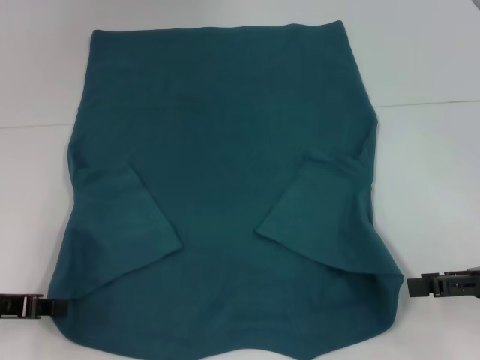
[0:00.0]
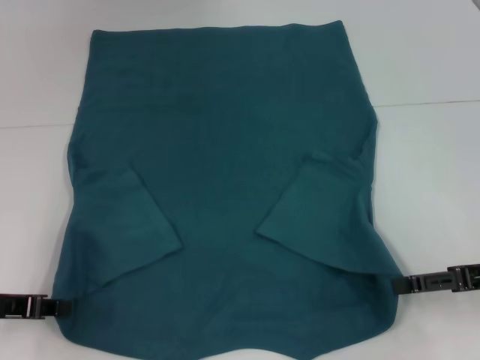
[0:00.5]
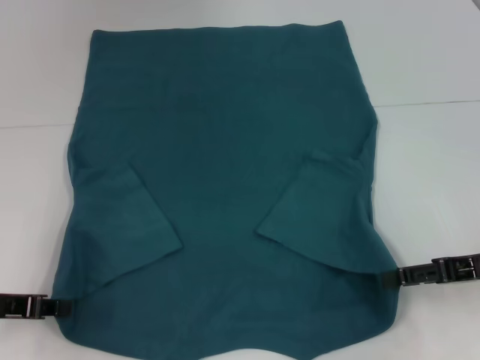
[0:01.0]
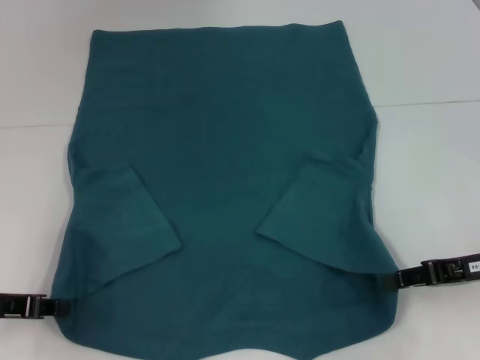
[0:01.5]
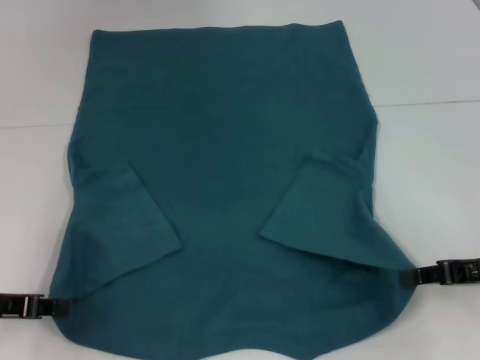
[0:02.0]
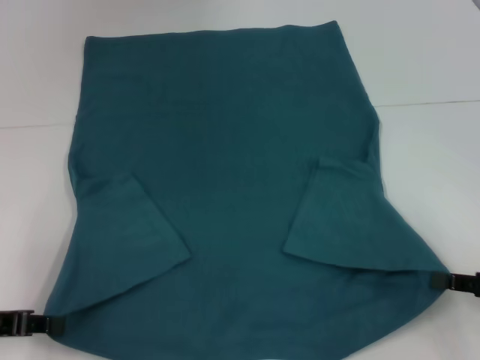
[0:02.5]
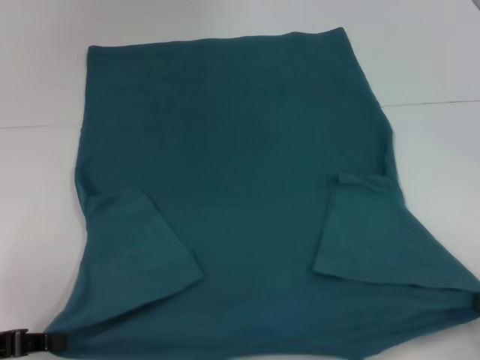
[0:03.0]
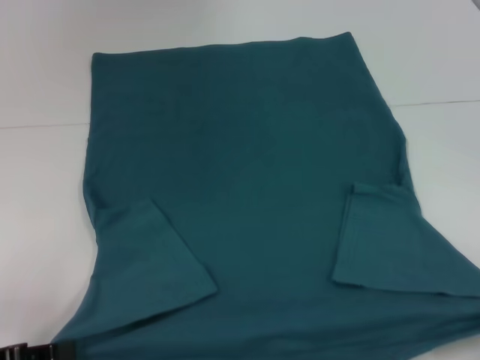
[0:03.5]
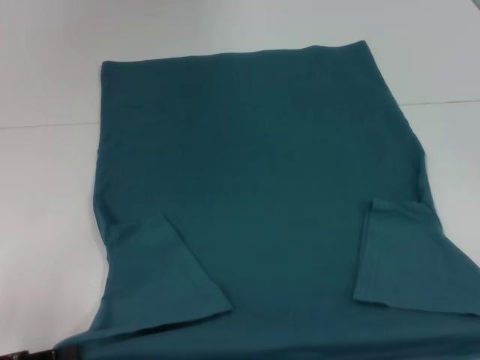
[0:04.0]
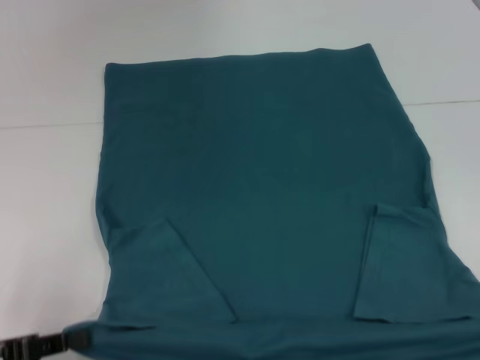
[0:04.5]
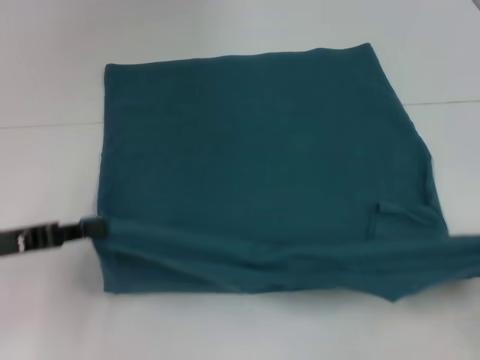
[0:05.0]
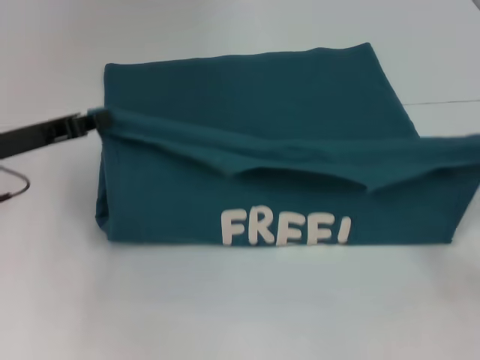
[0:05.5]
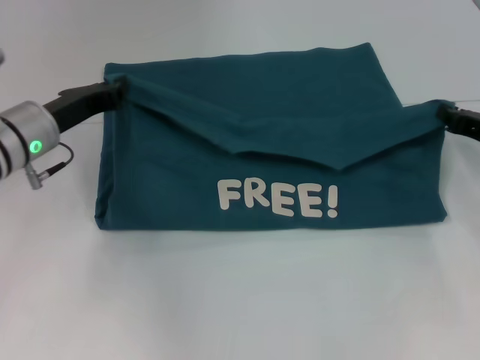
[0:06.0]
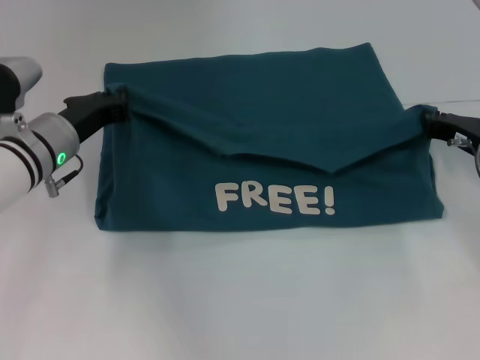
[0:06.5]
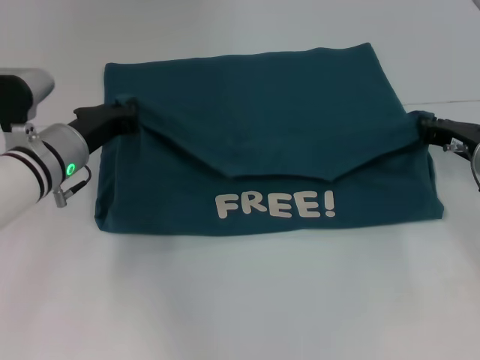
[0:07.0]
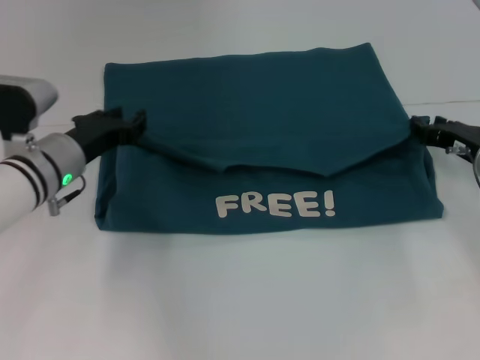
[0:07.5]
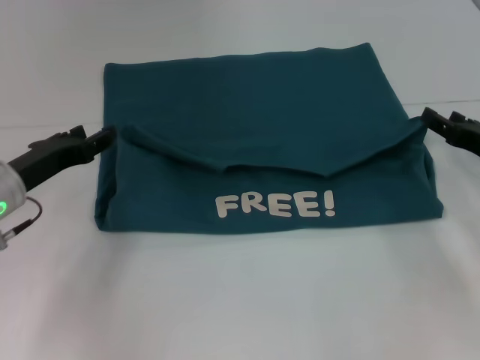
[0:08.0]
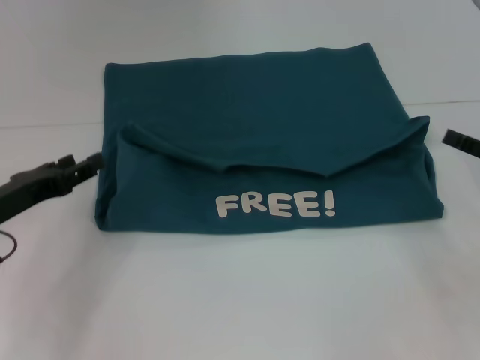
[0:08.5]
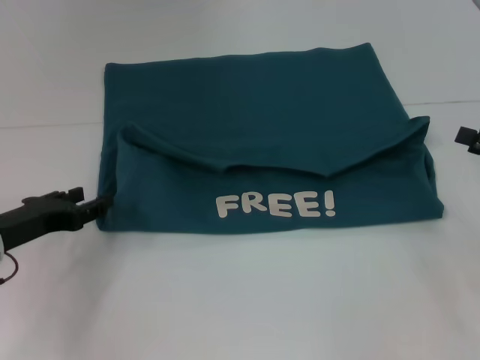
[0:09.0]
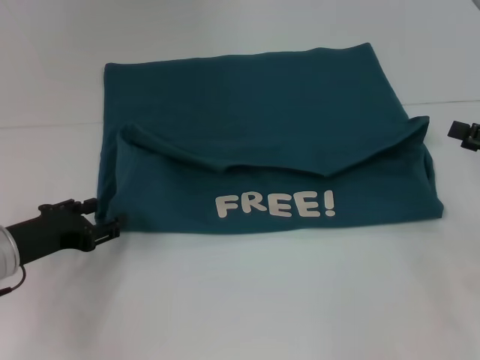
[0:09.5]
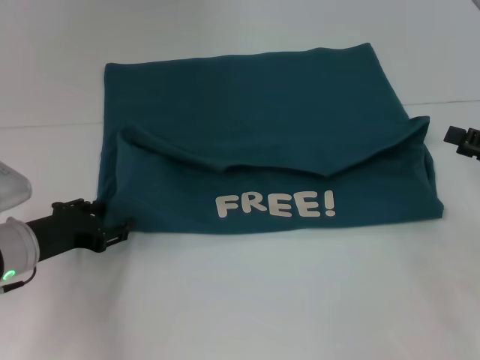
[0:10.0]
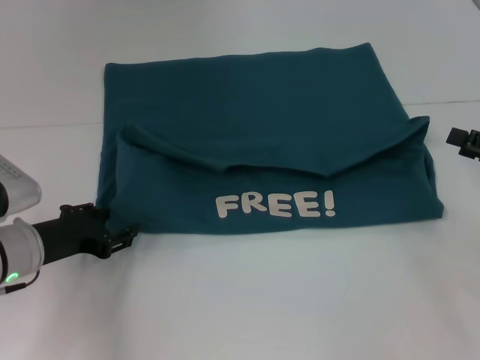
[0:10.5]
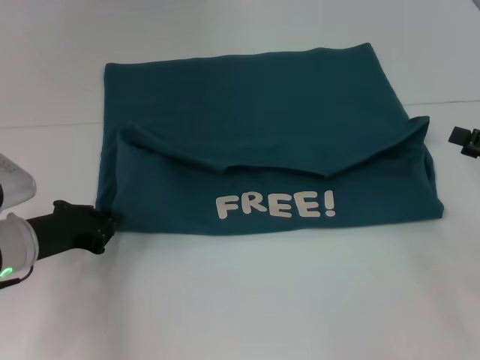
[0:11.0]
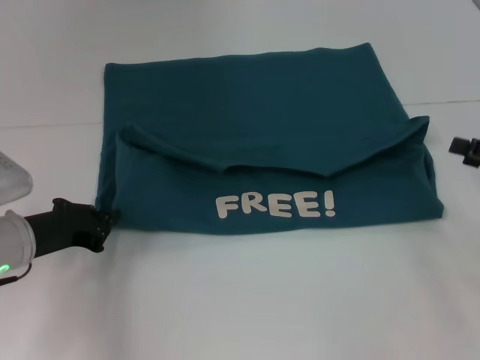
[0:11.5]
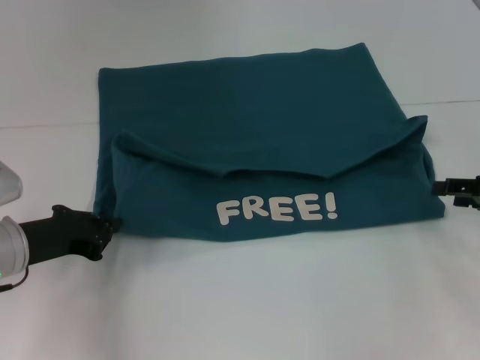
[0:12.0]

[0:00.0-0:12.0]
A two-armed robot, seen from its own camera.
Step, 0:00.0 to 0:01.5: Grab the bottom right corner with your right hand.
Step, 0:02.0 to 0:07.5: Fold the clothes to the left.
Step, 0:02.0 to 0:07.5: Fold the clothes to the right.
0:00.0 to 0:02.0: The right gripper closes up.
0:02.0 to 0:04.0: The right gripper moves backward and to the right, about 20 cm, while the left gripper travels backward by about 10 cm.
0:04.0 to 0:06.0: The left gripper travels forward and to the right by some 25 cm; the right gripper moves forward, approximately 25 cm.
0:06.0 to 0:08.0: The right gripper opens up. The left gripper travels backward by some 5 cm, and opens its fingers.
0:08.0 to 0:10.0: The right gripper changes place by approximately 10 cm.
0:10.0 to 0:12.0: The left gripper closes its fingers.

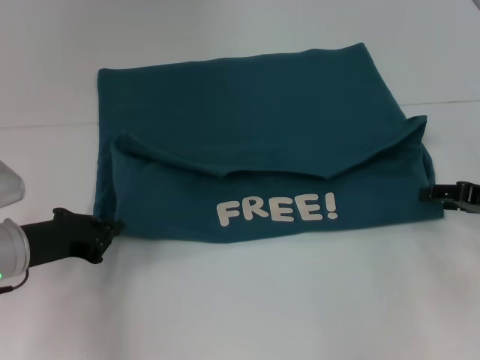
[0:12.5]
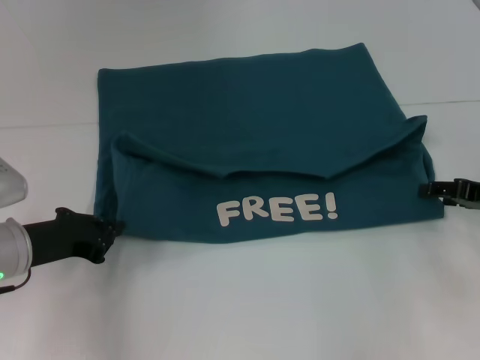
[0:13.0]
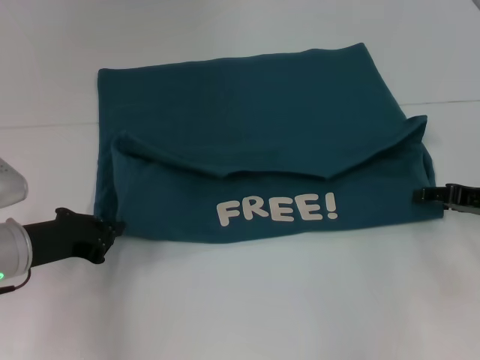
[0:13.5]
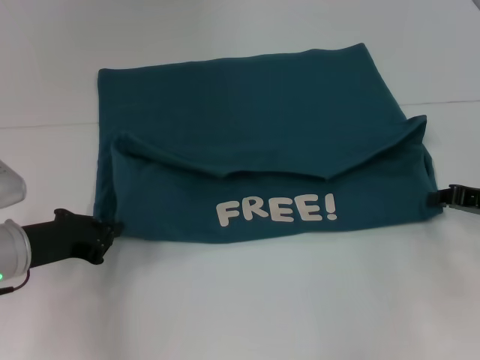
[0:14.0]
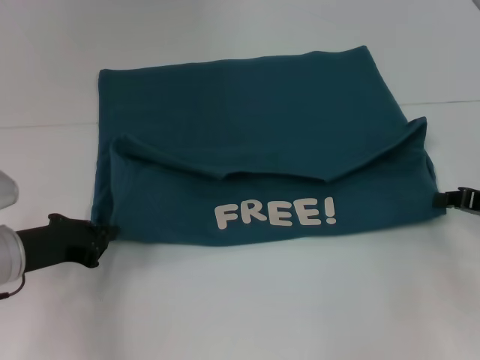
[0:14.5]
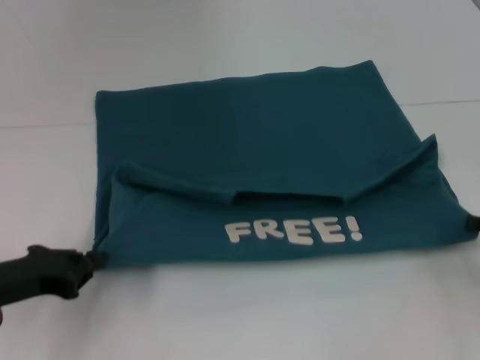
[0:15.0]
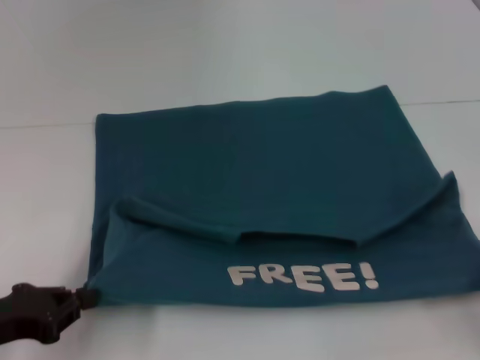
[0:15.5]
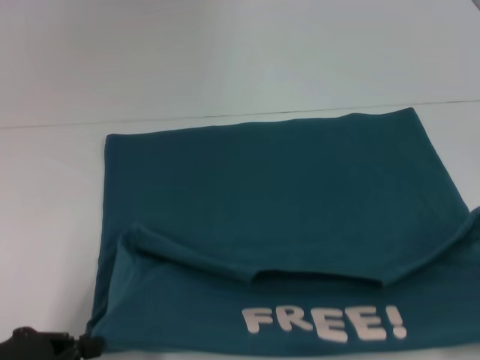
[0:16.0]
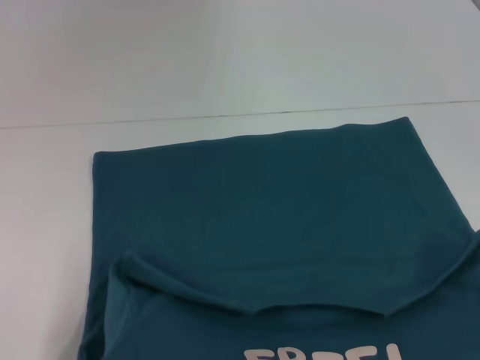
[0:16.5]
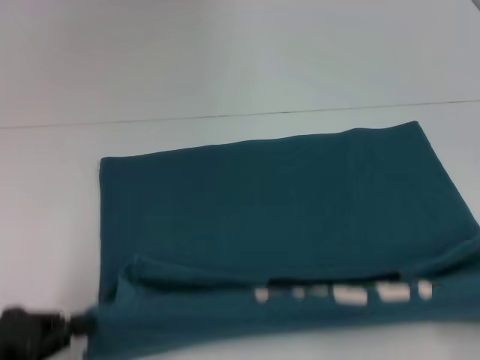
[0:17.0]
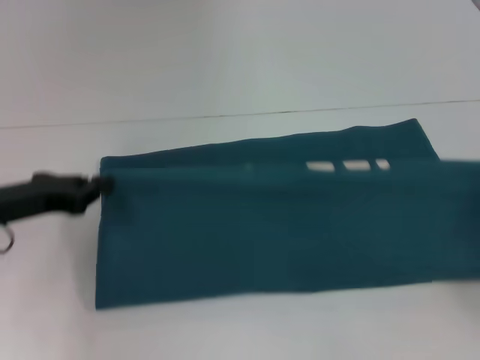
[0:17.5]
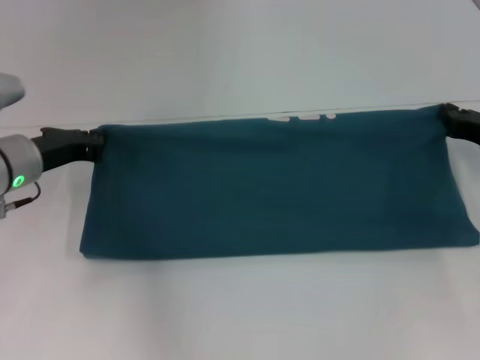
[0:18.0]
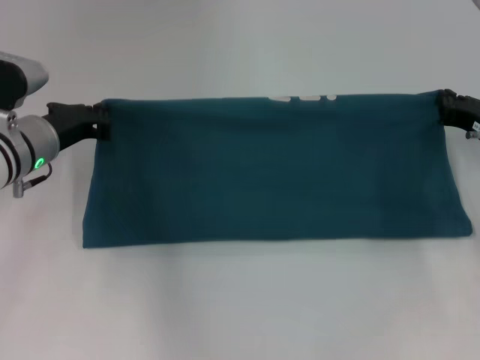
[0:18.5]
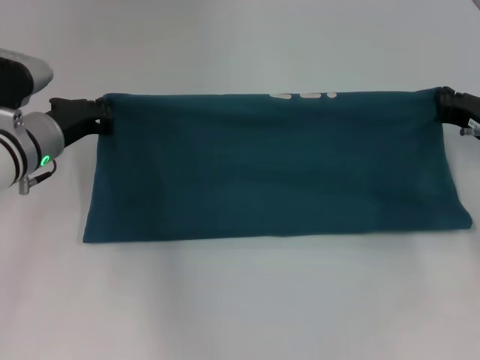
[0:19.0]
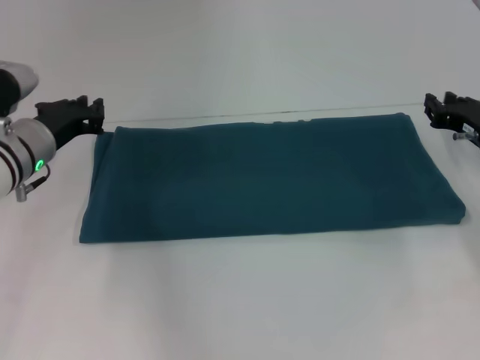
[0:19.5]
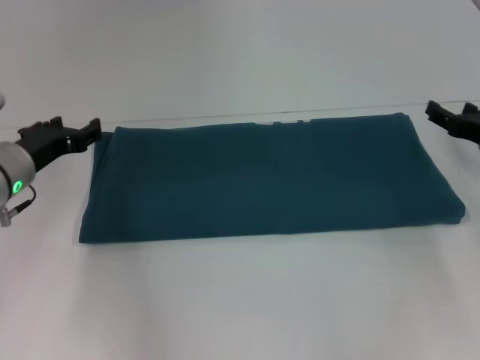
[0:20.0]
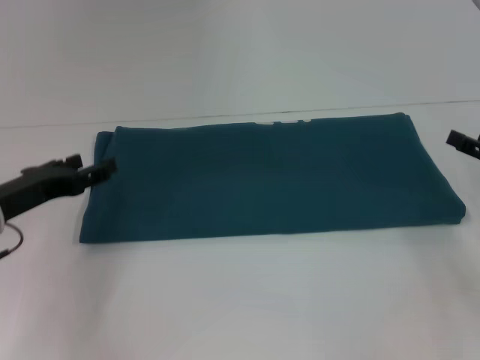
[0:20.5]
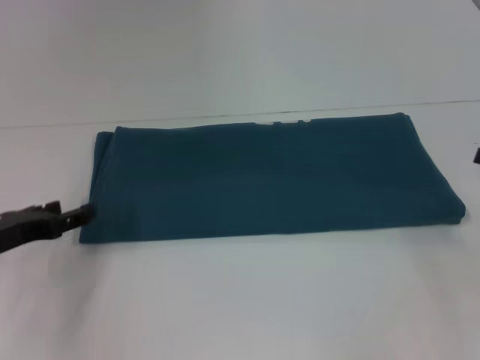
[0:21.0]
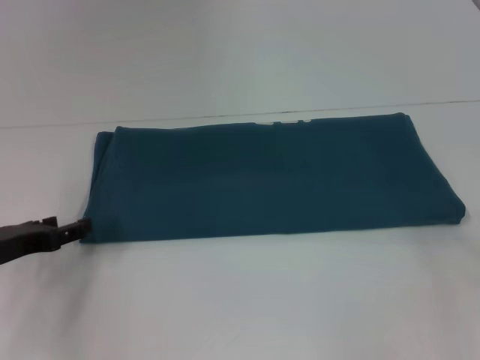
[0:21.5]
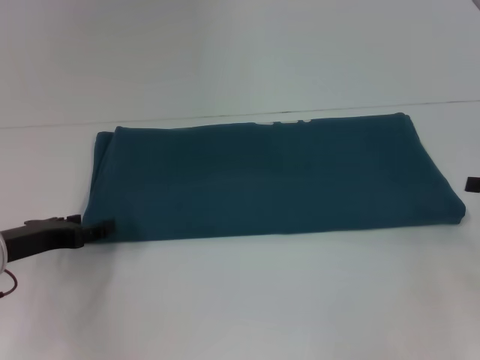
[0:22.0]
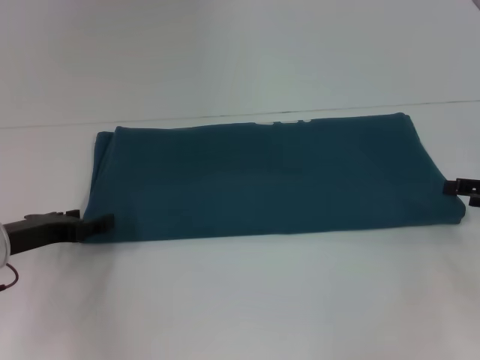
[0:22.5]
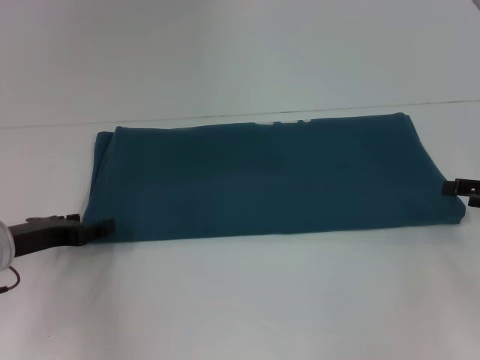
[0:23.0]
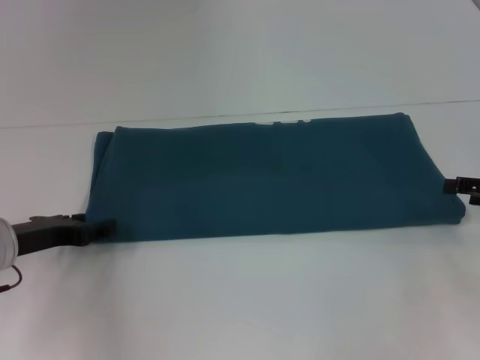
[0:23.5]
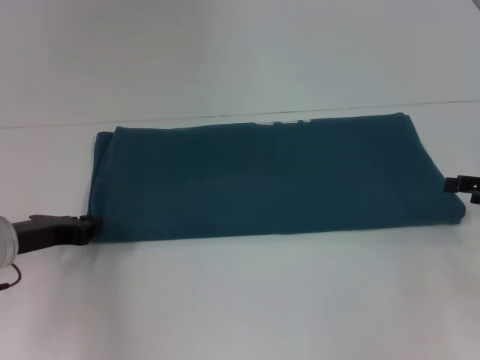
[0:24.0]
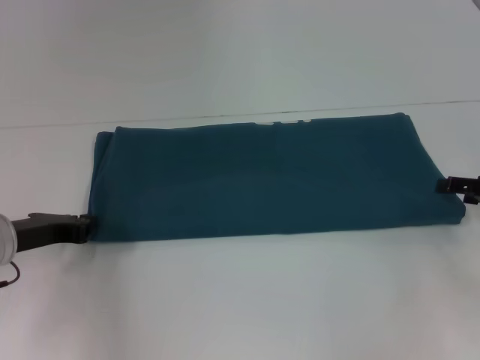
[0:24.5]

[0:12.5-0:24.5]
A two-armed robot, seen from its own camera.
Step, 0:12.5 to 0:16.0: Pull the clothes with your left hand.
Step, 0:12.5 to 0:16.0: Pull the clothes with your right hand.
Step, 0:16.5 to 0:19.0: Fold the clothes to the right.
0:12.5 to 0:14.5: The right gripper closes up.
0:14.5 to 0:16.5: The right gripper travels backward by some 25 cm. The left gripper moves backward, roughly 15 cm.
0:16.5 to 0:18.5: The grippers both shift forward by some 25 cm.
0:18.5 to 0:20.5: The right gripper shifts some 10 cm backward and to the right, and opens up. The left gripper moves backward and to the left, about 10 cm, and opens.

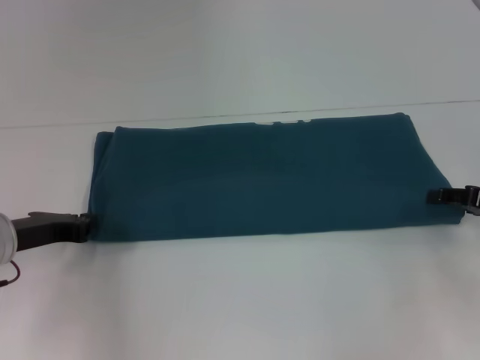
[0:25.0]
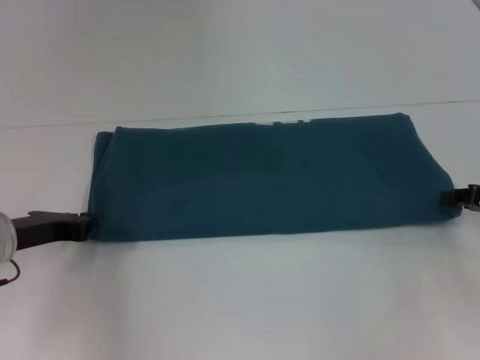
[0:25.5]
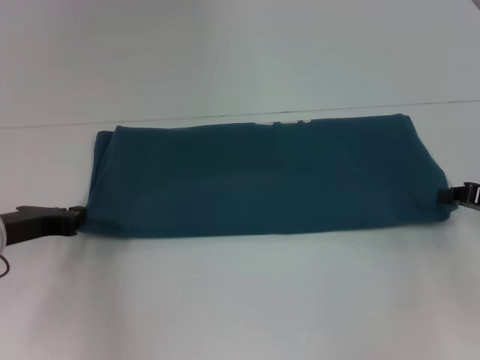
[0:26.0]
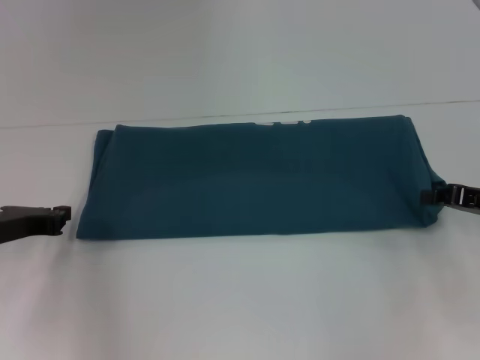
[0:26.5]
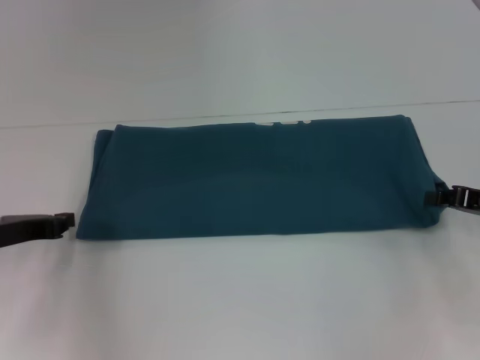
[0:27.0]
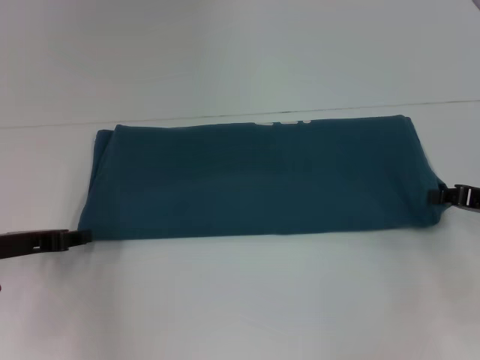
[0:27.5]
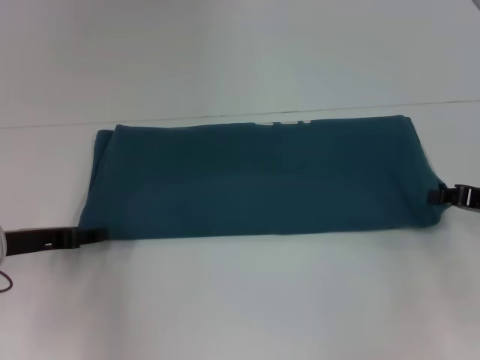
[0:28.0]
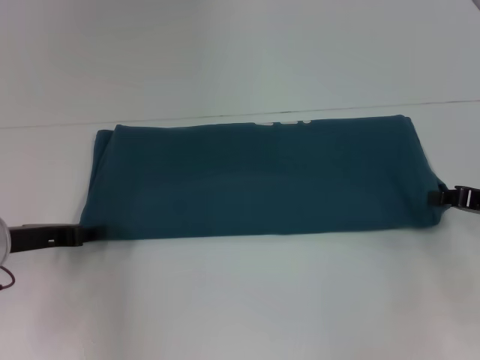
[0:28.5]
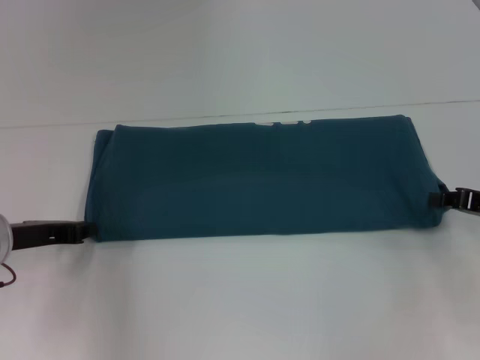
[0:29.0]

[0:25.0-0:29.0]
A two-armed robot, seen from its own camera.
0:25.0 to 0:27.0: The right gripper closes its fingers.
0:27.0 to 0:29.0: The grippers move only a little.
